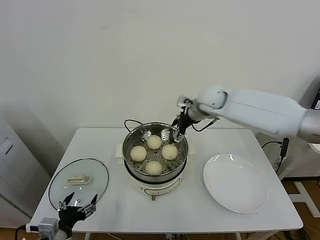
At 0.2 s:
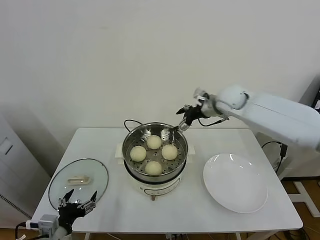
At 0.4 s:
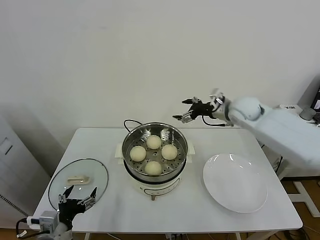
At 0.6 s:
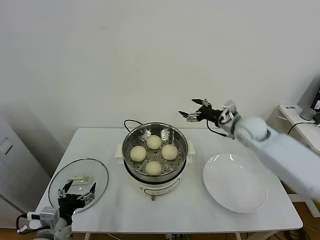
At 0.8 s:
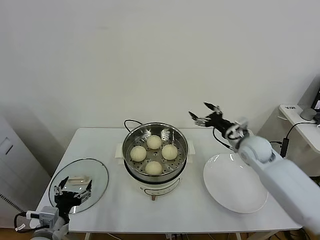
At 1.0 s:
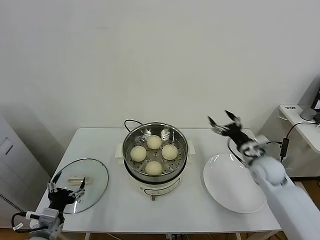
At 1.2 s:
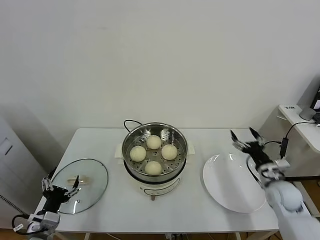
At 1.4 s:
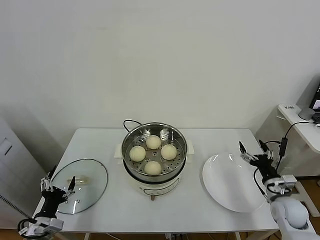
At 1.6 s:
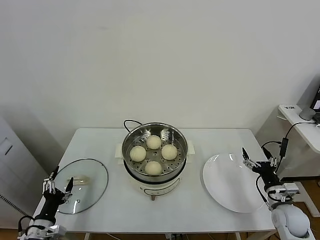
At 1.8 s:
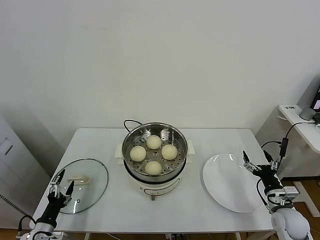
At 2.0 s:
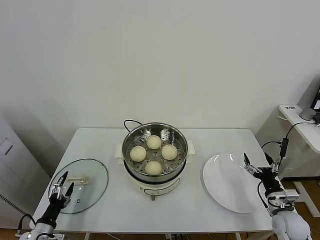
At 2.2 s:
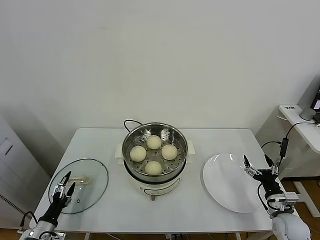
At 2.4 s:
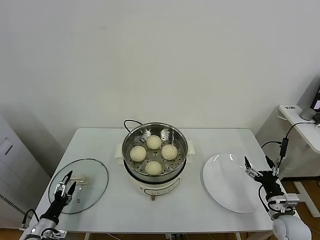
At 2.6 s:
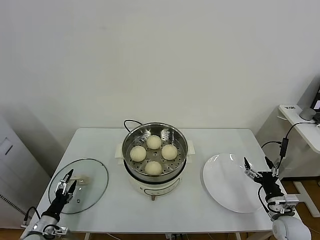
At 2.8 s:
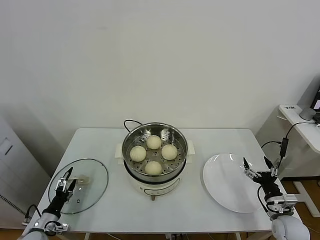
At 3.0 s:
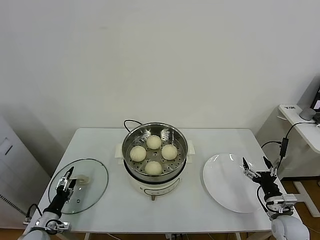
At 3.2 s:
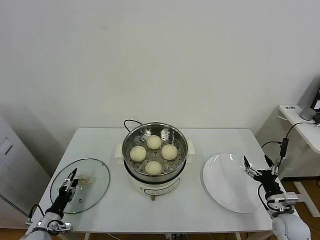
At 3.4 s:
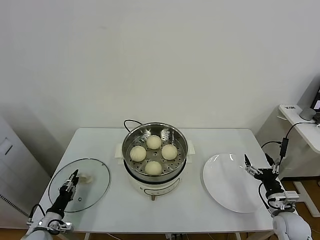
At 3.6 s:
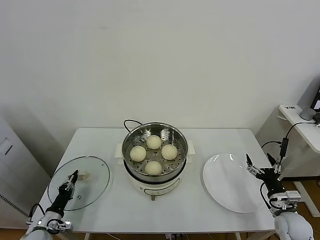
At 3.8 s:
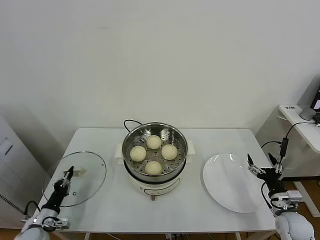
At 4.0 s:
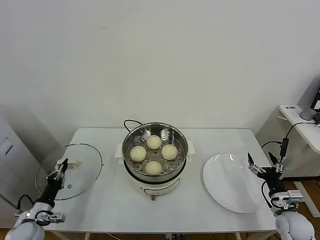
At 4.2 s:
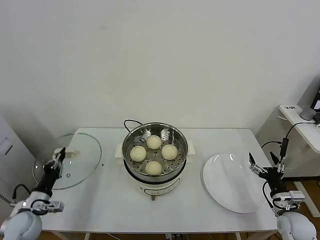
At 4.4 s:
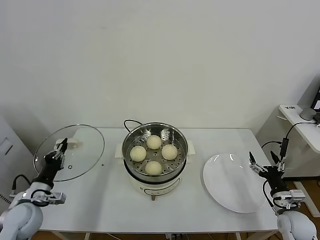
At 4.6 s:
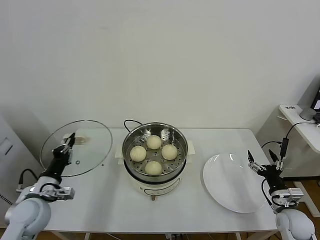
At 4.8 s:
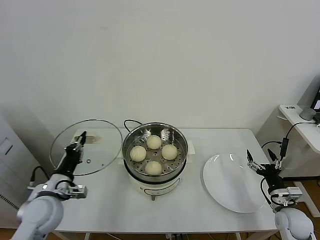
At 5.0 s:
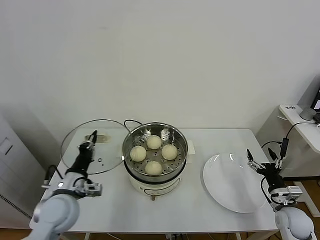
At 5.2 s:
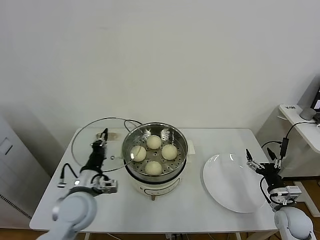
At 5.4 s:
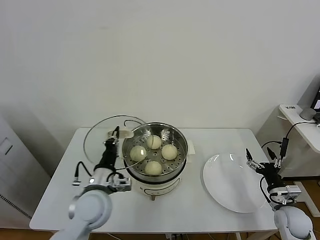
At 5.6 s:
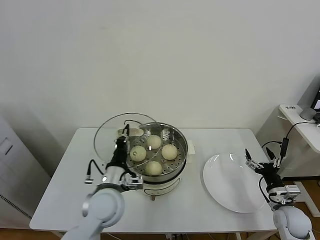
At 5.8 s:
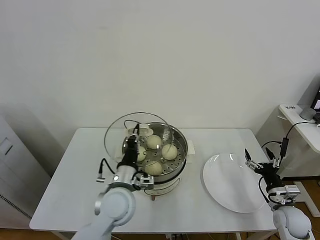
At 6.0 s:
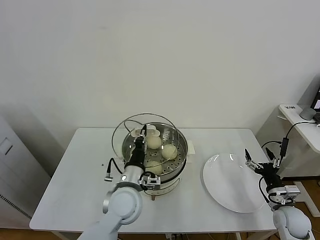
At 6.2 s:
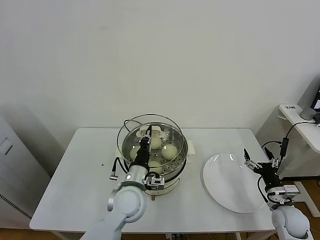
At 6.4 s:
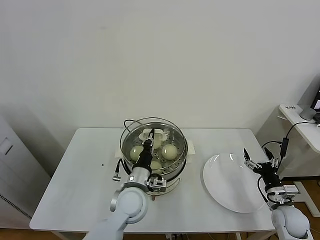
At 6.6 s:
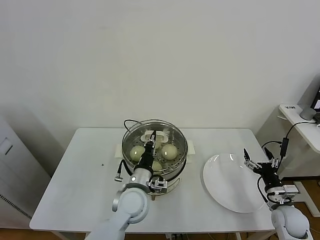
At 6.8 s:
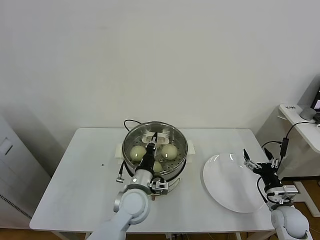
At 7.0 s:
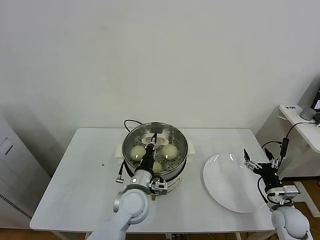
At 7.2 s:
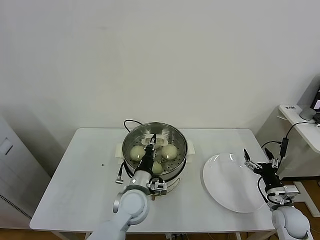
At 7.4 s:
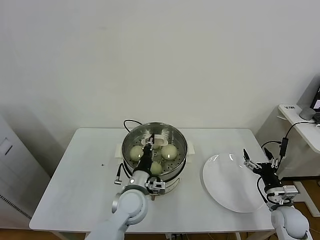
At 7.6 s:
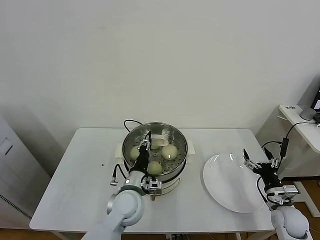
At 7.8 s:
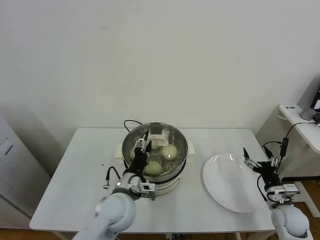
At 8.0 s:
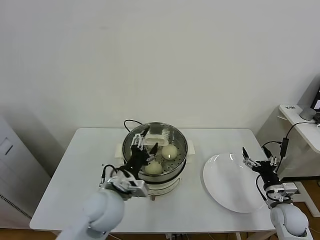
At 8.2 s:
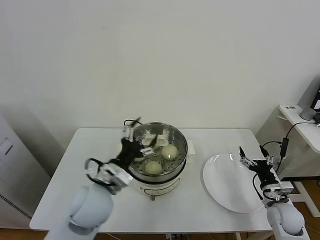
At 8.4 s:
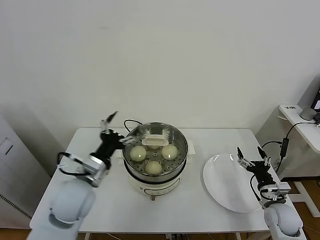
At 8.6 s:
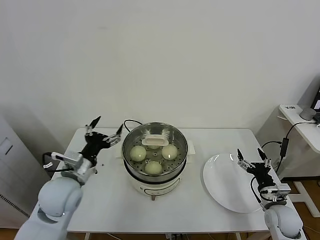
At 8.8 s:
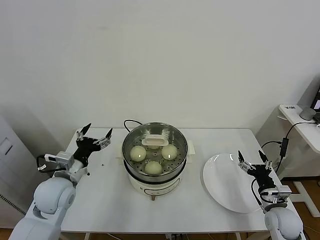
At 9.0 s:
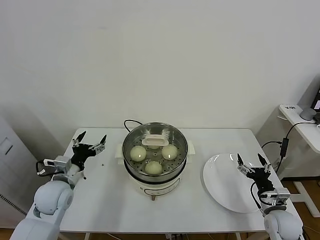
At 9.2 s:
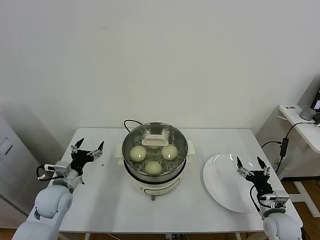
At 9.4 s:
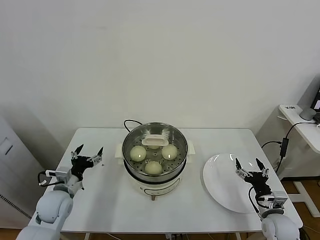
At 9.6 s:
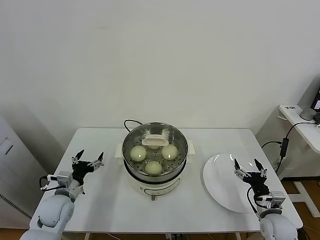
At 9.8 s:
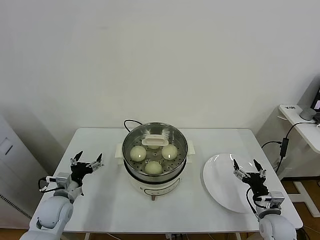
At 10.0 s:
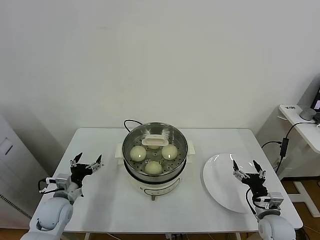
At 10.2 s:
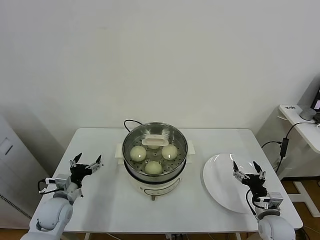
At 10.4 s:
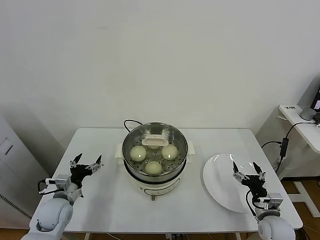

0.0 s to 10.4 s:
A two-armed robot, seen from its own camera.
Task of the whole recording: take steamed baozi put them in steamer.
Step, 0.0 to 3.6 s: Grasp the pot lid with left gripper.
Step, 4.0 to 8.2 s: Place the pot lid on the steamer with left gripper.
0.0 to 1.4 s: The left gripper moves to the left and downward, roughly 10 cm. Meanwhile the right gripper goes roughly 40 cm downward, backward and to the right.
1.4 to 3.0 s: The left gripper travels downward and to the left by roughly 10 cm. Meanwhile the right gripper shifts by about 5 cm.
3.0 to 4.4 s: The left gripper goes about 15 cm upward, and closes its fingers.
4.4 to 6.0 s: The left gripper is displaced to the right by some 30 cm.
6.0 to 7.4 s: The left gripper goes approximately 5 cm downward.
7.4 to 9.0 s: The left gripper goes about 25 cm to the left, and opens.
9.0 to 10.4 s: The left gripper goes approximately 10 cm downward.

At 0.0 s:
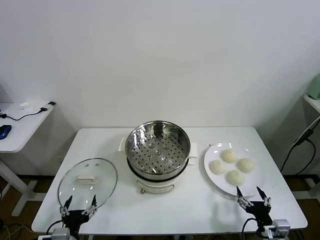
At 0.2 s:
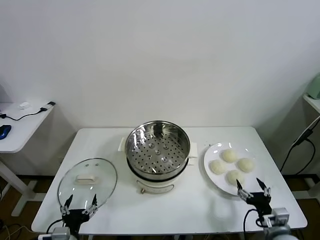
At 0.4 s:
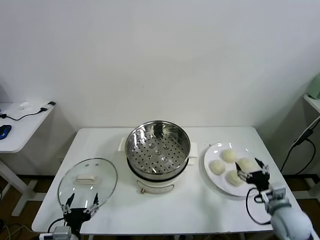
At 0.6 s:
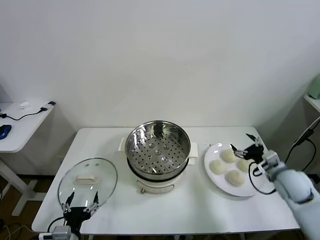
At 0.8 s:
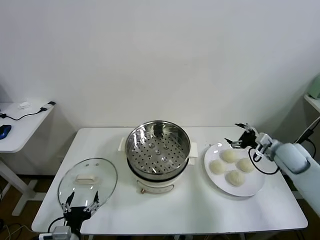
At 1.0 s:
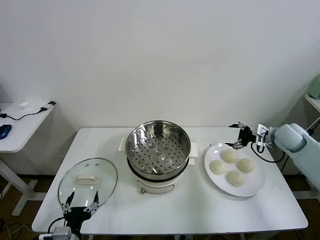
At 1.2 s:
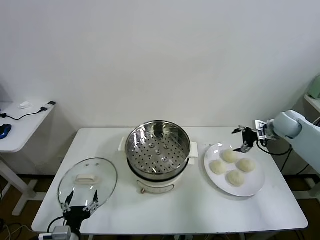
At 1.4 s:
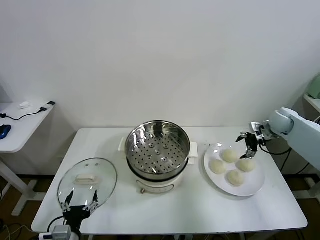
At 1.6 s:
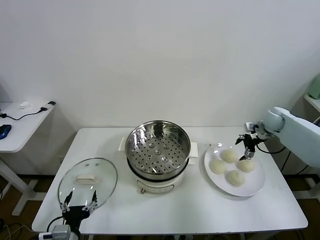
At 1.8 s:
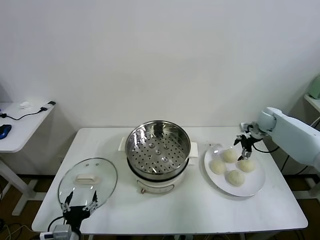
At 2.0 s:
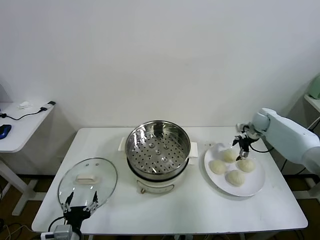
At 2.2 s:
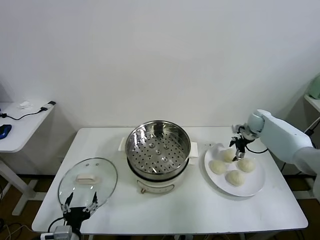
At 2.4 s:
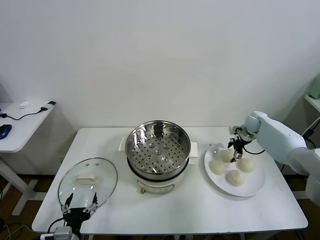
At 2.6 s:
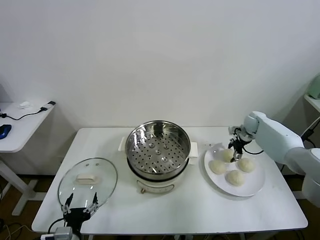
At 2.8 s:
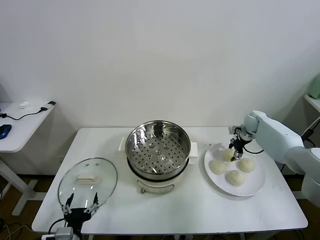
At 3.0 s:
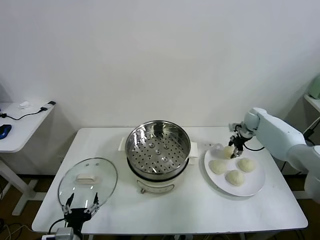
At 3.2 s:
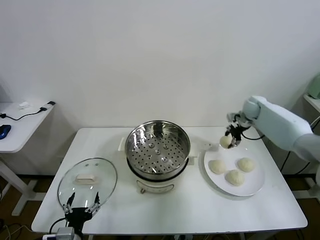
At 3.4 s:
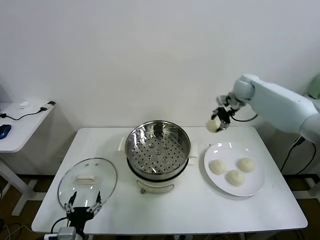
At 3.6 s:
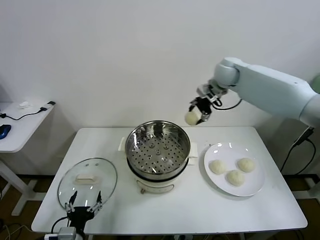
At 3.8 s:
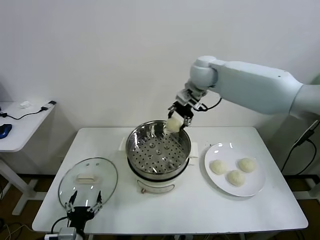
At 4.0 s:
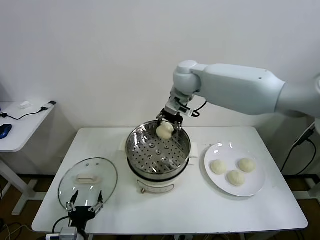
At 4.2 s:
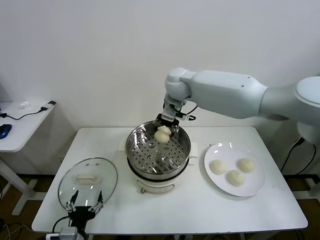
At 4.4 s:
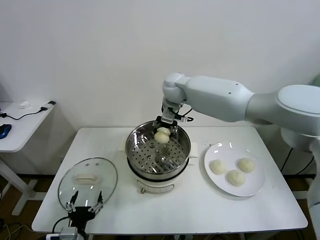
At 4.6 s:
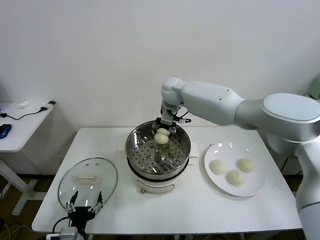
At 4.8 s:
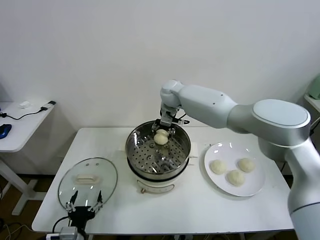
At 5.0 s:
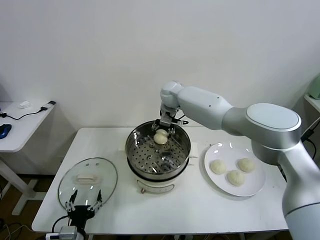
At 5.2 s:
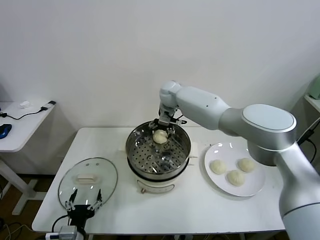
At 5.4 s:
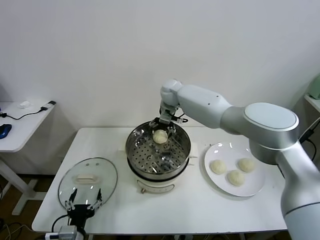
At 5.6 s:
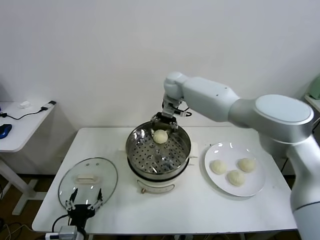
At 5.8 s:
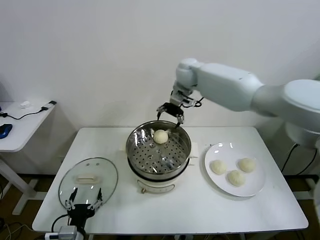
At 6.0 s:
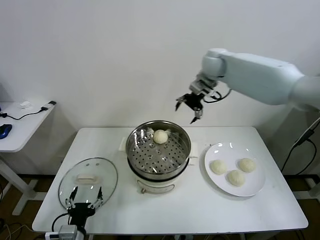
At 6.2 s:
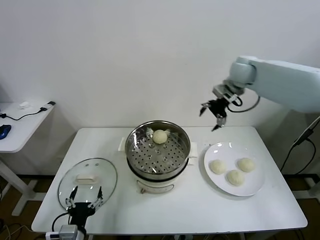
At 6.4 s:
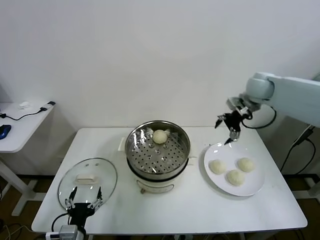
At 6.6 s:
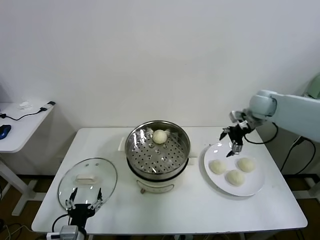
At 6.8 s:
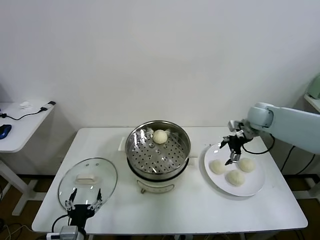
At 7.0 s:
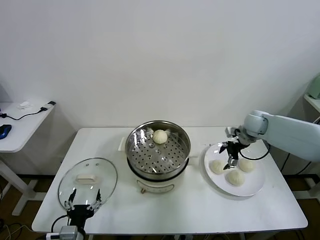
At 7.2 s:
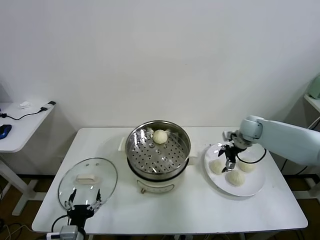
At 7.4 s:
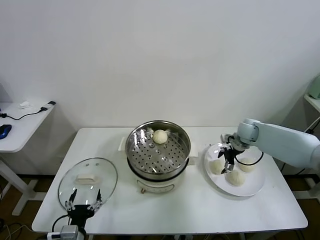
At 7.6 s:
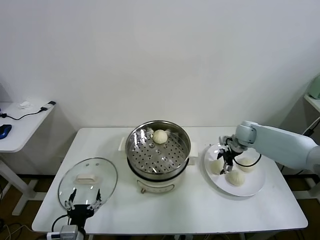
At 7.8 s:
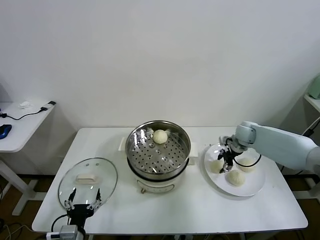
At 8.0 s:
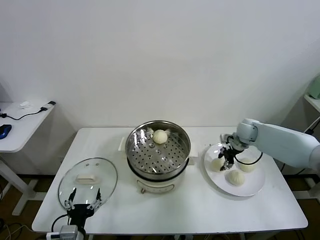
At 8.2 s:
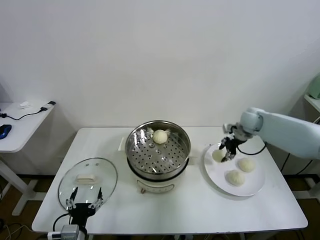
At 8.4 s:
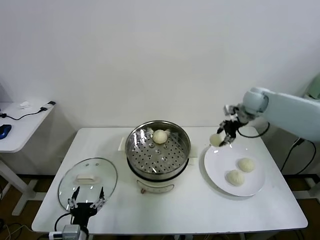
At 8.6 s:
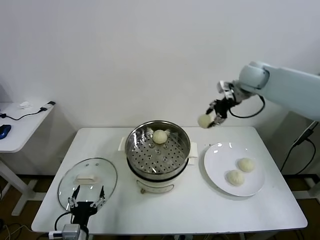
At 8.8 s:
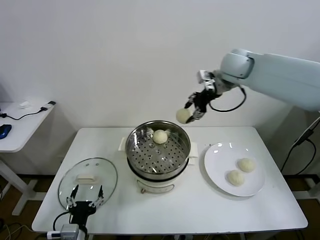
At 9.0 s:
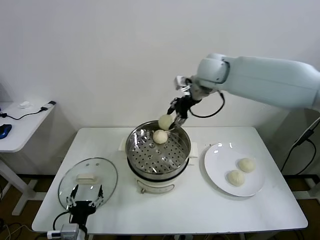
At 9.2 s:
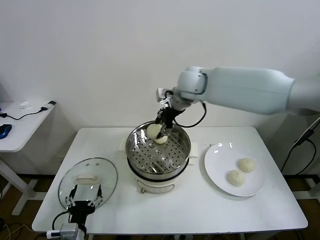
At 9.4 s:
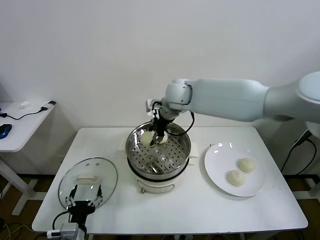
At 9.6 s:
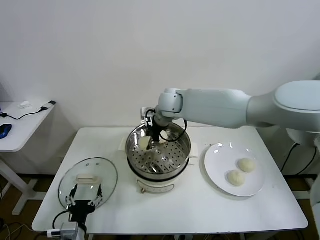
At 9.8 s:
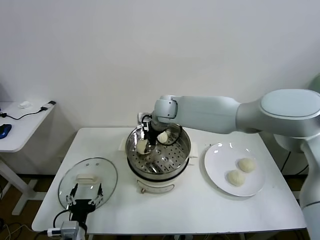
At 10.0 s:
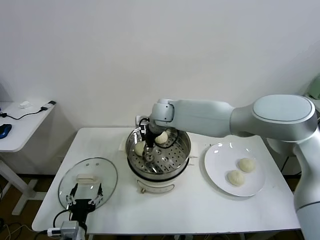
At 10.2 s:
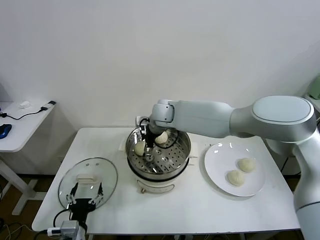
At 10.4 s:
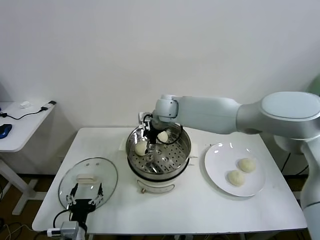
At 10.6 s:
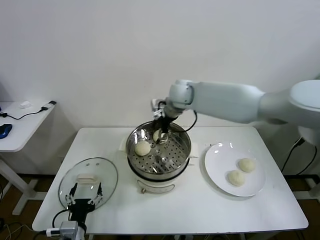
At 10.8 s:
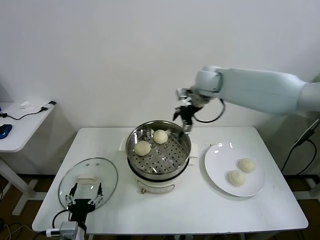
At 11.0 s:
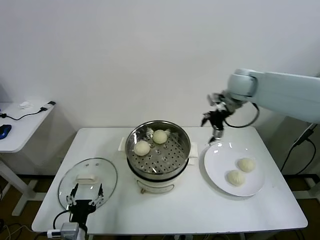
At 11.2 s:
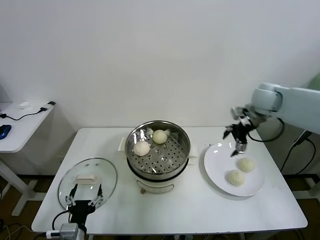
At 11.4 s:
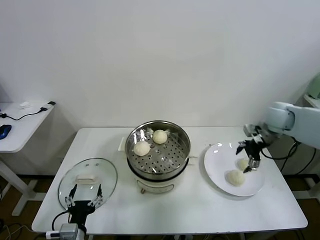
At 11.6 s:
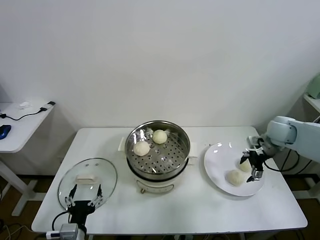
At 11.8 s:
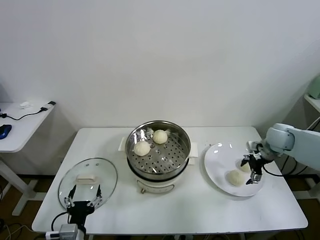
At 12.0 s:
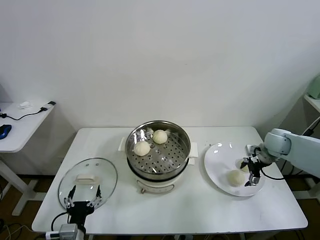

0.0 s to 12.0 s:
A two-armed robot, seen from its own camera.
Task of the whole recording: take steamed baozi put them in steamer.
Step, 0.0 to 2.6 s: Grasp the baozi in the plate with right gripper.
Step, 2.8 to 5.4 s: Place the baozi on the steamer with right gripper.
Step, 5.6 to 7.8 s: Grasp the baozi in the plate with right gripper.
Step, 8.0 to 10.2 s: Place the baozi on the steamer with right gripper.
1.6 to 3.0 s: The right gripper changes place by about 5 cm, and closes up.
3.0 to 4.4 s: The right gripper travels to the left and upward by about 40 cm.
4.4 to 6.0 s: The right gripper moves to the right and upward, roughly 20 cm, and opens up.
6.0 to 7.6 s: The right gripper travels downward and to the right by some 30 cm.
7.6 to 9.0 s: The right gripper shifts about 35 cm upward and to the left, and closes.
9.0 to 10.4 s: The right gripper shifts about 15 cm downward and to the left, and opens up.
10.4 to 12.0 s: The right gripper heads to the right, covering about 40 cm.
